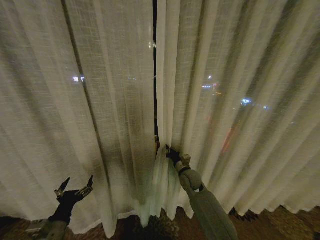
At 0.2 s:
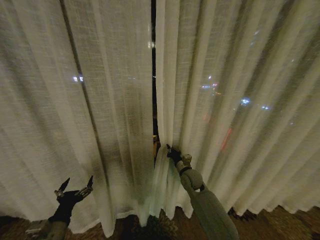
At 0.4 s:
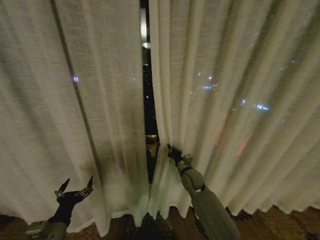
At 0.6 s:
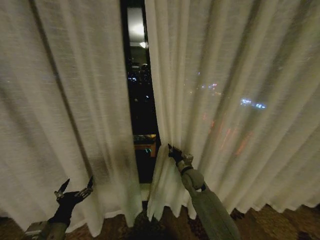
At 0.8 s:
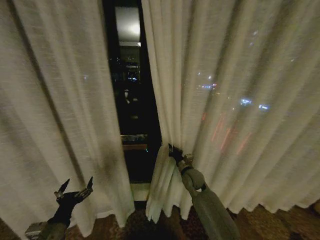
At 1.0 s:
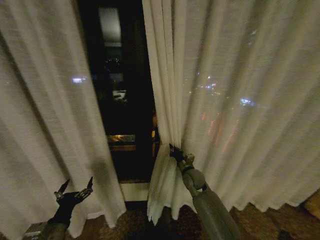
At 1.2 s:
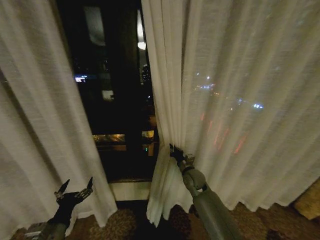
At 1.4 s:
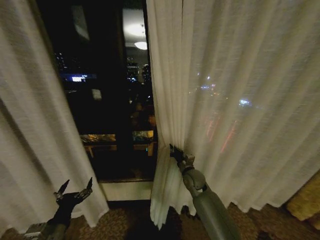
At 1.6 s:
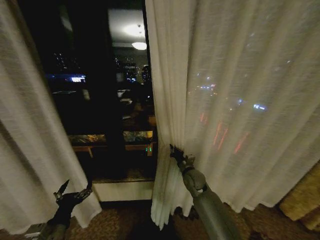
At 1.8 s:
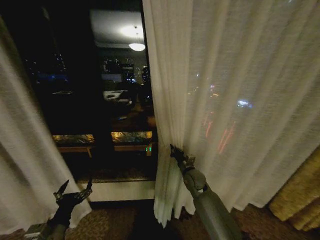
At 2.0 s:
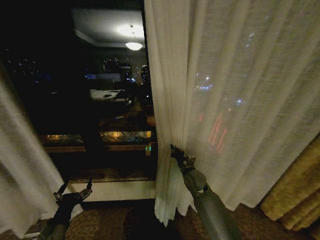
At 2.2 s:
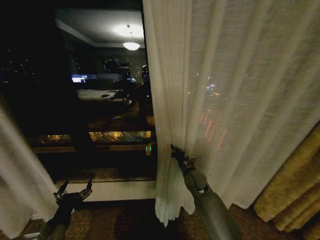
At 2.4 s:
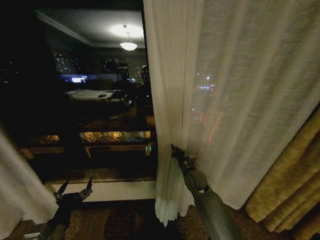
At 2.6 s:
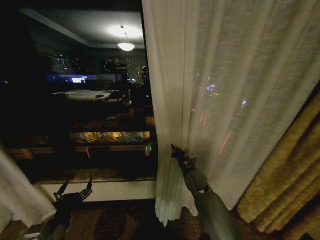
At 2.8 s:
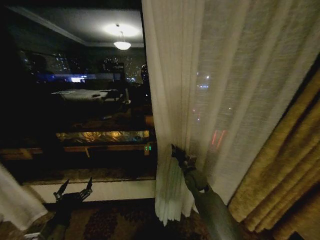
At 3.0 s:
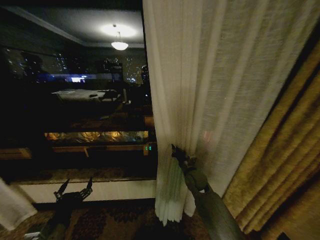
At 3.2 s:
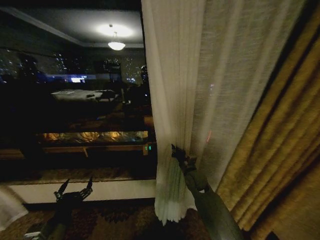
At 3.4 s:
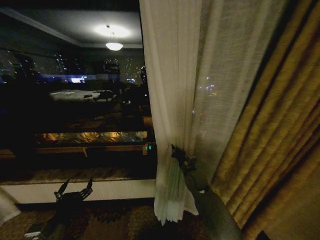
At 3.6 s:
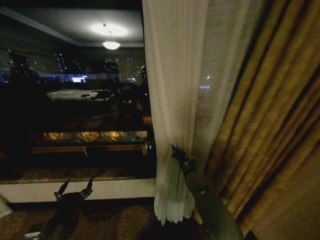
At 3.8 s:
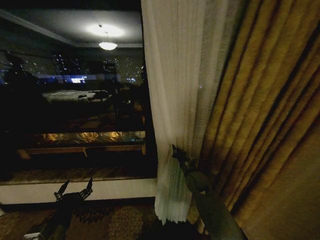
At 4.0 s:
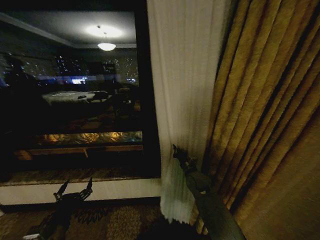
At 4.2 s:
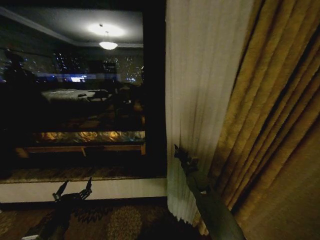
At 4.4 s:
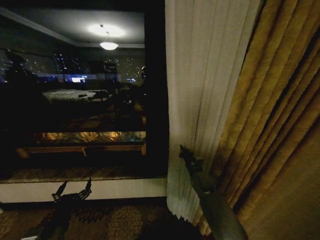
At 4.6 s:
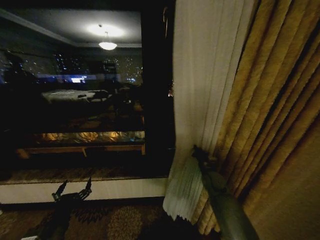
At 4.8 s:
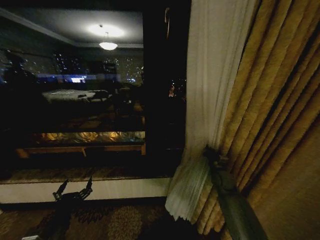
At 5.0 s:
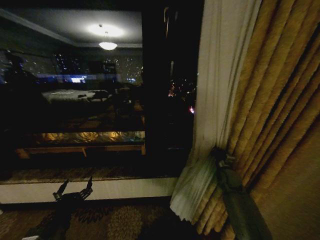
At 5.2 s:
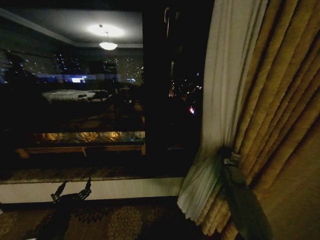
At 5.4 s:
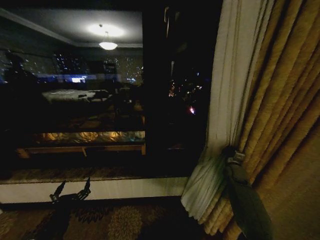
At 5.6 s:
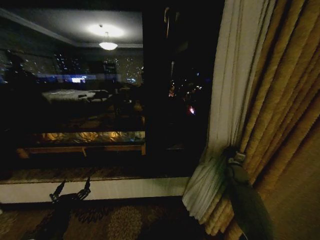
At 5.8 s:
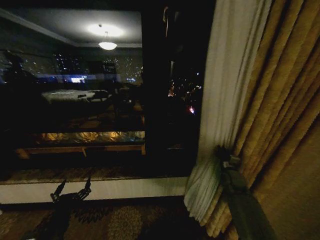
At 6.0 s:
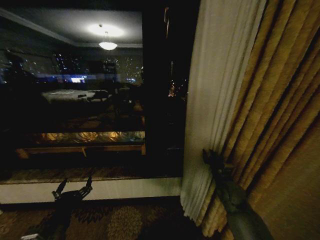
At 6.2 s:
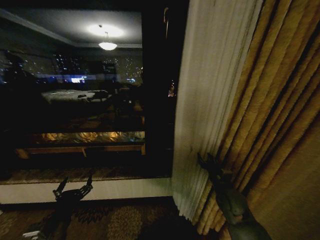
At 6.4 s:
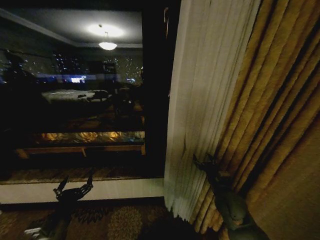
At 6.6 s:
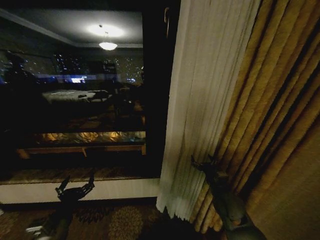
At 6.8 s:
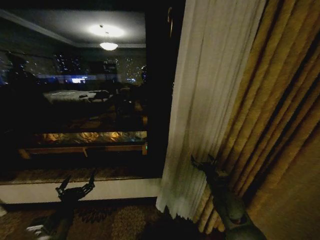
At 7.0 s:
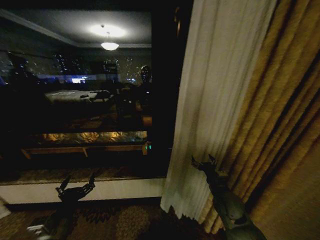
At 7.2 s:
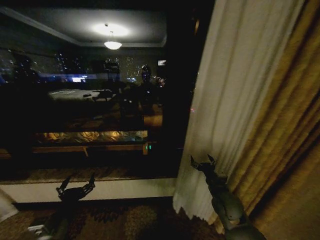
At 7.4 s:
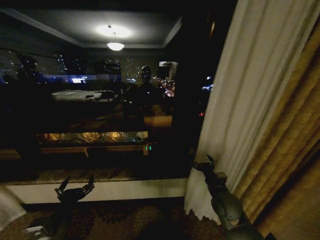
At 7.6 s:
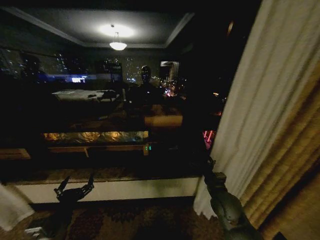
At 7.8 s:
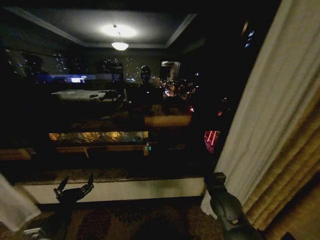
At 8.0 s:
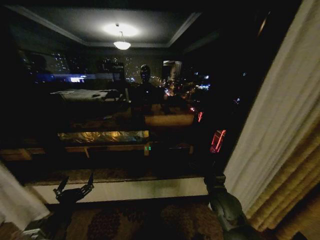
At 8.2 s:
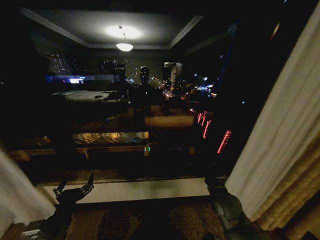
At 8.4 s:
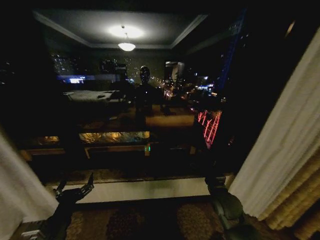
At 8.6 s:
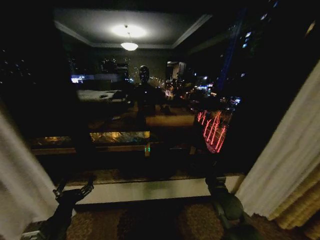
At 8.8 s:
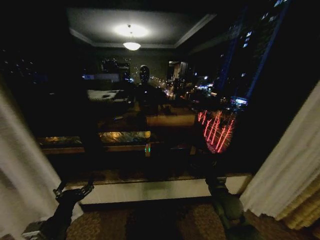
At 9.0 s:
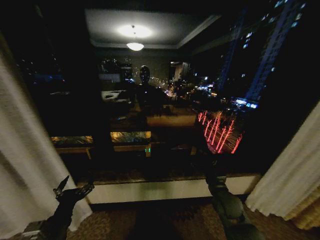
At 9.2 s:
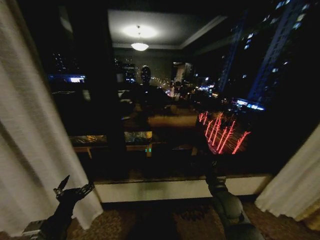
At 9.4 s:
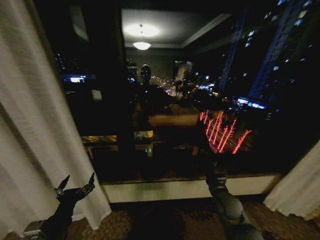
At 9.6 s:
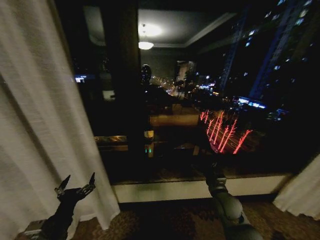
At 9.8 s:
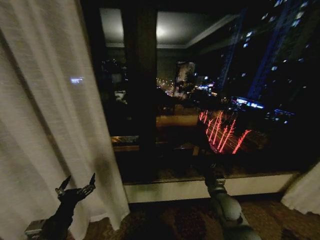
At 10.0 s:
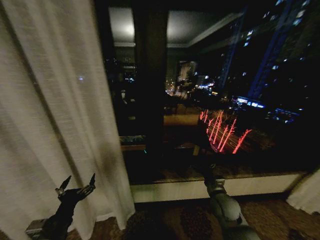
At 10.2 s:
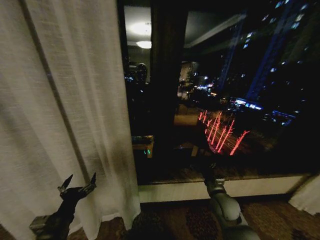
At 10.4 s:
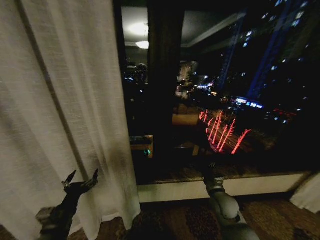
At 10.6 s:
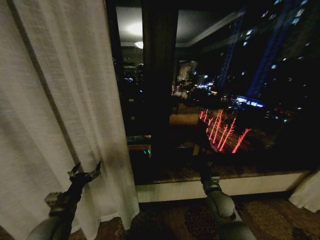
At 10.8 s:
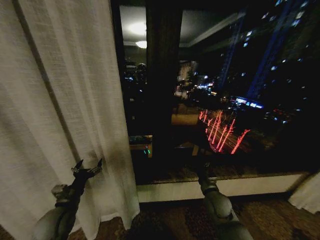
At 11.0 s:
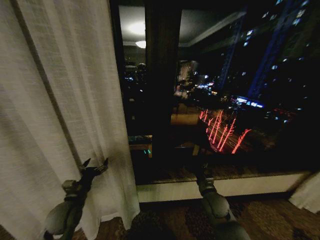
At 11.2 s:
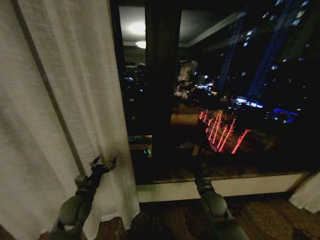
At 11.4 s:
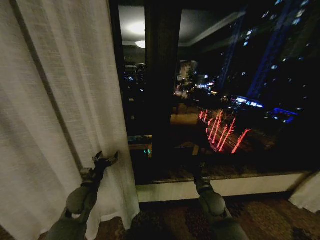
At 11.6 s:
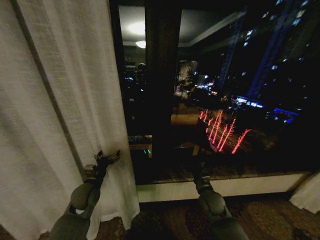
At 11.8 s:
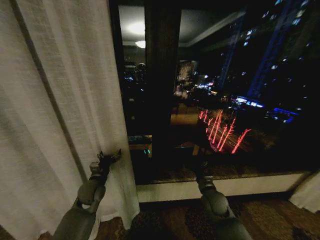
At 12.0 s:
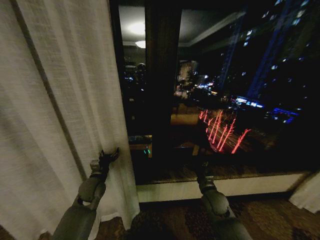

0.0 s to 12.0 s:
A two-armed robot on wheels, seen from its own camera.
Task of the whole recording: Open the curtains by pulling them apart, changing their state from closed to fully open.
4.4 to 6.0 s: The right gripper travels to the right and backward by some 10 cm, and opens.
6.0 to 7.6 s: The right gripper shifts approximately 5 cm to the left and backward, and opens its fingers.
10.4 to 12.0 s: The left gripper goes roughly 20 cm forward.

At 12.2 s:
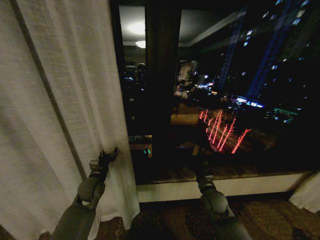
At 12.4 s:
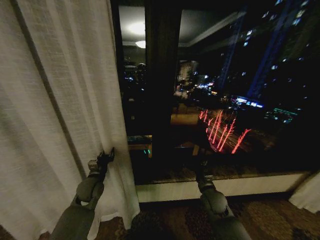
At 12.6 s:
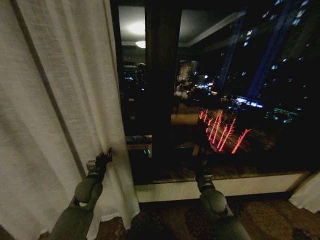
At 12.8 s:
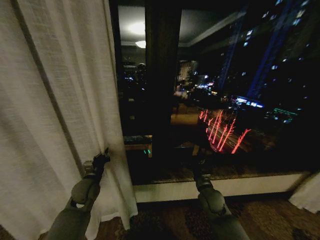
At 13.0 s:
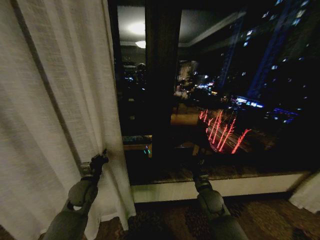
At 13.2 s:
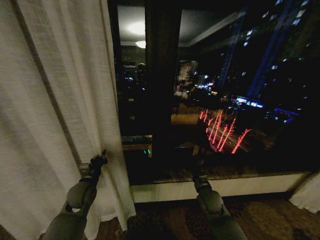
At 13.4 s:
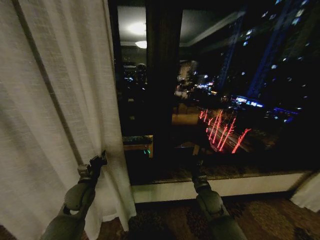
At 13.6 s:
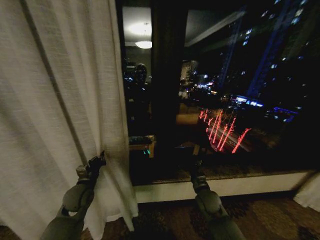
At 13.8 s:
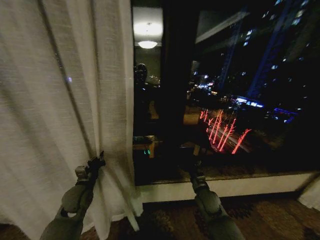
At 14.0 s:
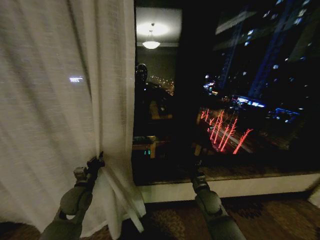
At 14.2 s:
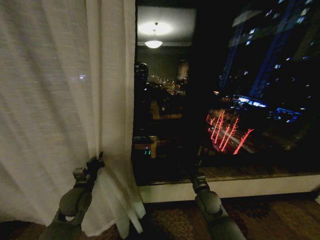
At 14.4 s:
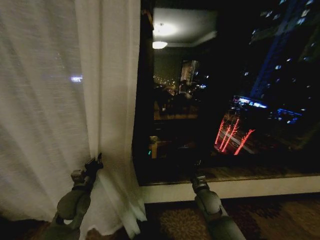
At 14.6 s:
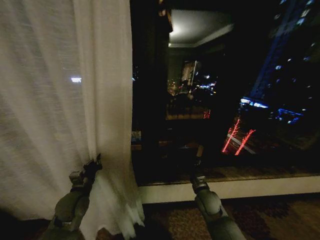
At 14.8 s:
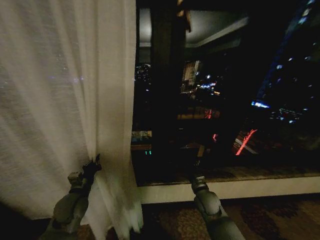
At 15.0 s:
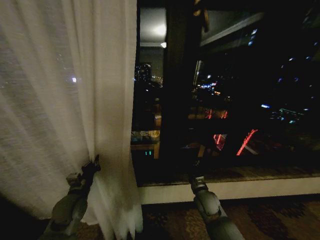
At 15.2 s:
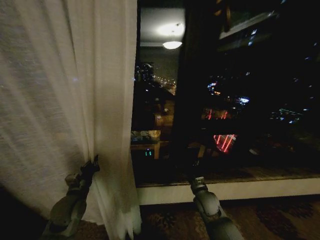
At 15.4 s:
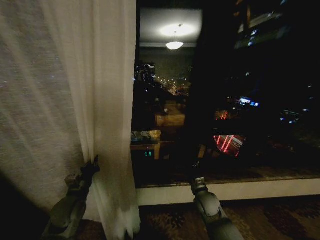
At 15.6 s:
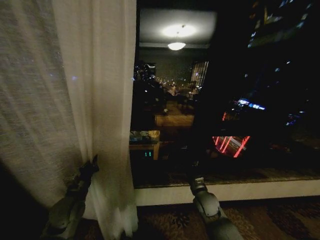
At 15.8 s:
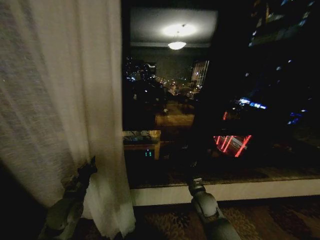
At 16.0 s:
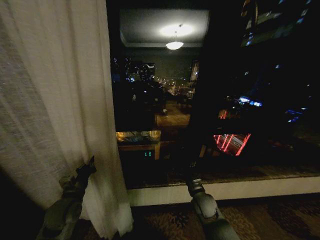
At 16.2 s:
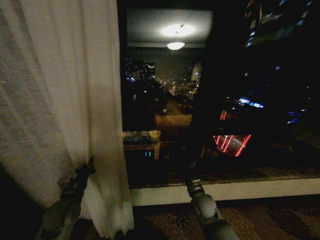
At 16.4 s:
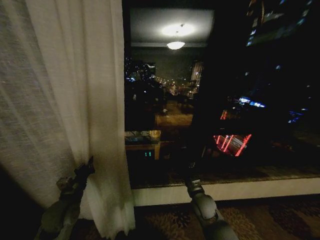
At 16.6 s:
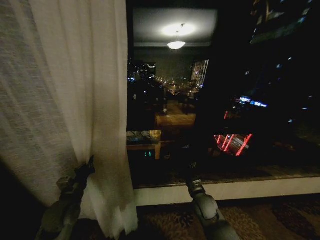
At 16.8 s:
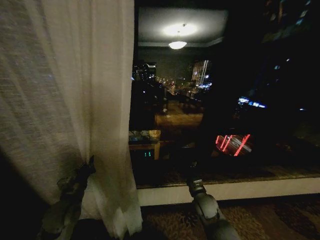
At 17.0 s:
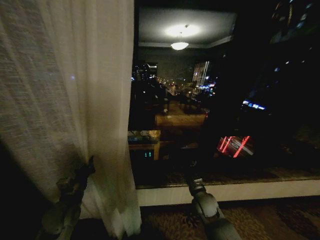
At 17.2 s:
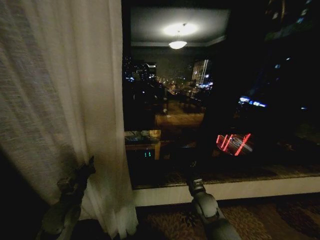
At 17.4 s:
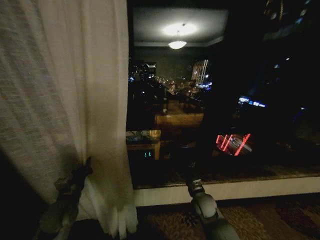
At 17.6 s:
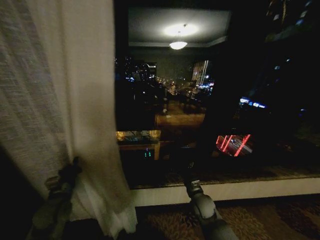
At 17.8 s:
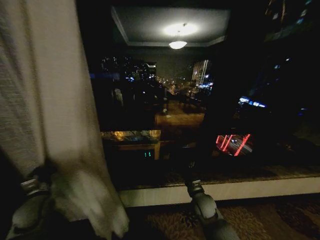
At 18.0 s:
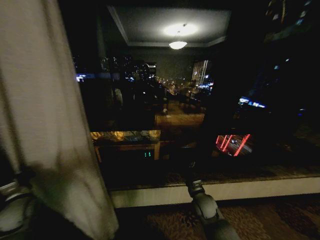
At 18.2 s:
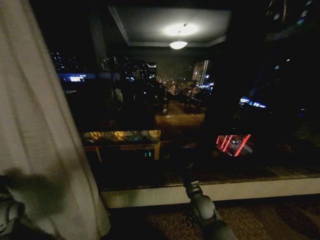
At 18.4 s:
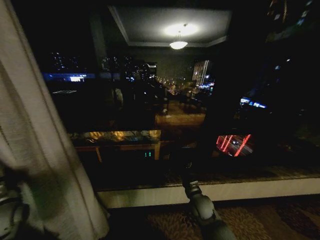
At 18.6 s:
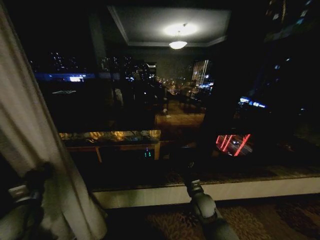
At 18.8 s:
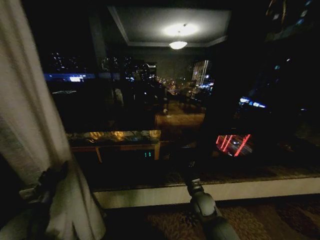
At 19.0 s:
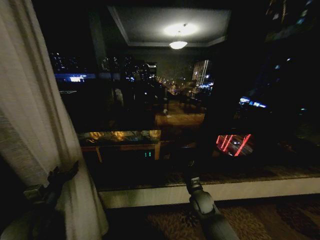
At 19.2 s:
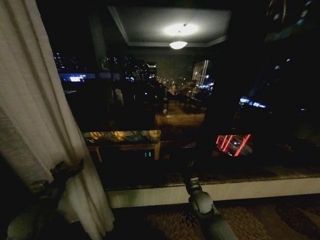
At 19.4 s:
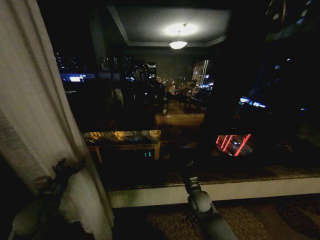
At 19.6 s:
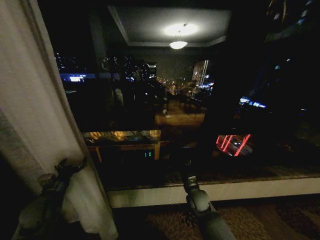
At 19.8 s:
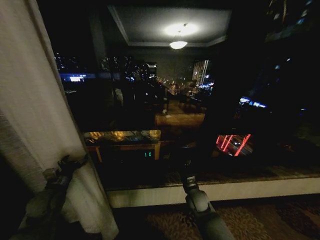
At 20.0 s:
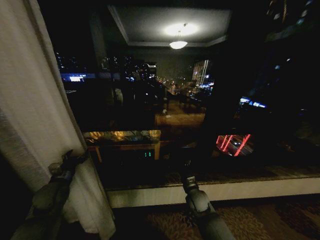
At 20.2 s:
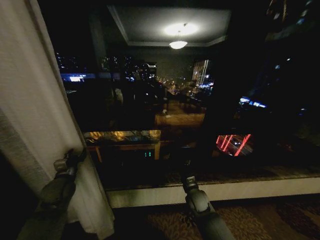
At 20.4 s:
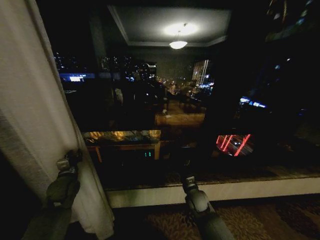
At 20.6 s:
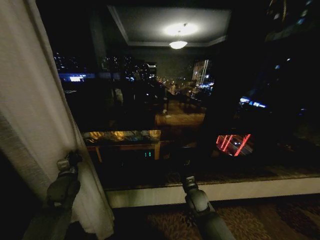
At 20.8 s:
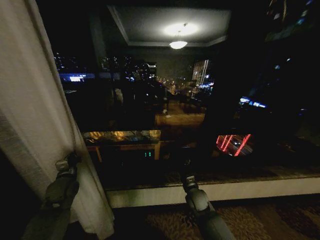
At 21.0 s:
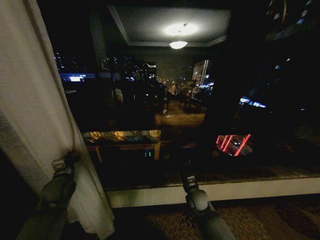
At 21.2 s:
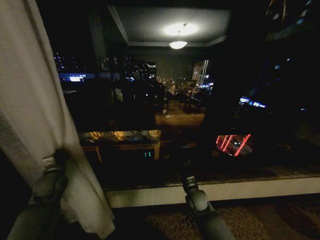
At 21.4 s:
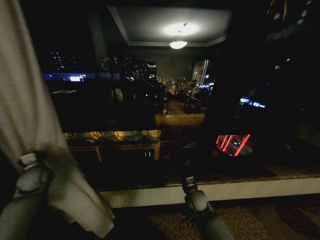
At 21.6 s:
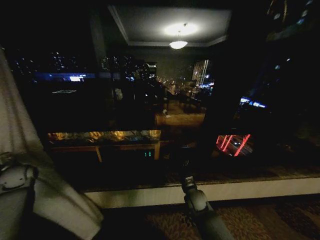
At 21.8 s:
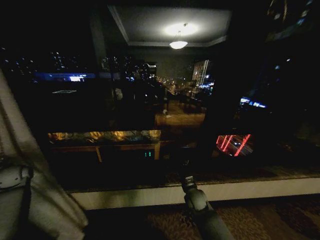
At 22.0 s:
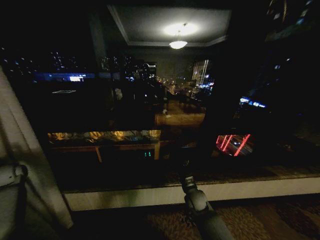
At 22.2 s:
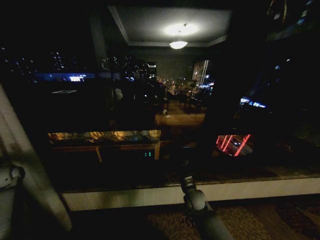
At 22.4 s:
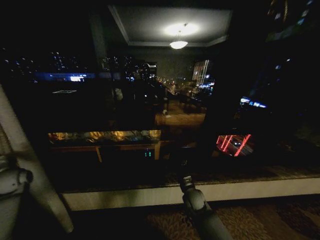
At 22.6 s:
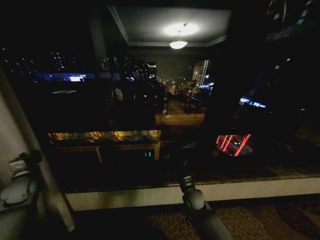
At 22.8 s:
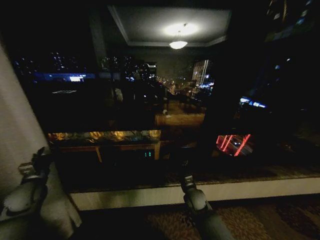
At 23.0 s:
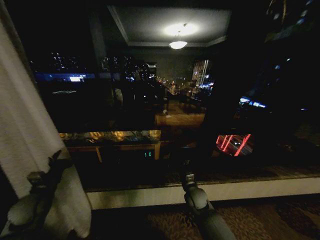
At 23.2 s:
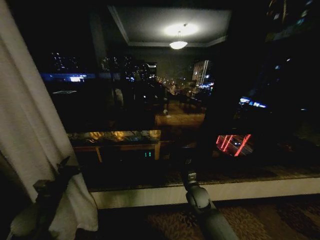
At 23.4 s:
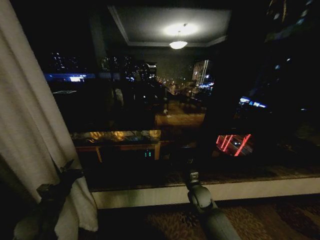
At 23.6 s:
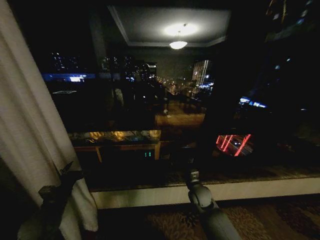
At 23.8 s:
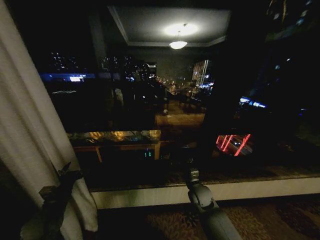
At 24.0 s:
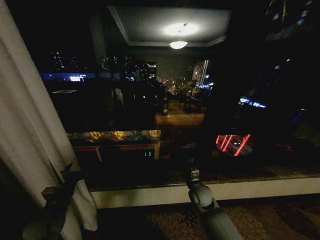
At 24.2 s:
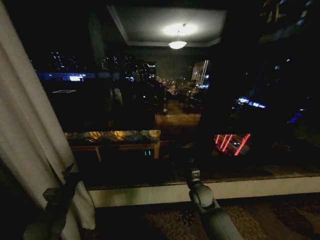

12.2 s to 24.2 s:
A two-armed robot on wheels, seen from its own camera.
Task of the whole recording: Open the curtains by pulling them apart, changing their state from closed to fully open.
12.2 to 13.8 s: The left gripper moves roughly 5 cm, and closes up.
15.2 to 16.6 s: The grippers make only small movements.
16.6 to 18.2 s: The left gripper is displaced to the left by roughly 20 cm.
18.2 to 19.8 s: The left gripper moves to the right, about 15 cm, and opens up.
19.8 to 21.2 s: The left gripper shifts approximately 5 cm forward, and closes up.
21.2 to 22.6 s: The left gripper is displaced to the left by about 10 cm, and opens.
22.6 to 24.2 s: The left gripper moves to the right, backward and downward, some 15 cm, and opens.
